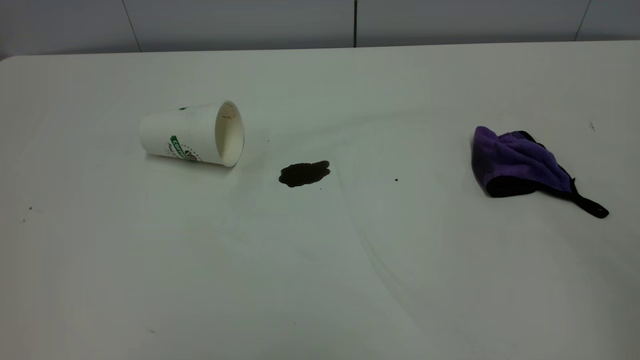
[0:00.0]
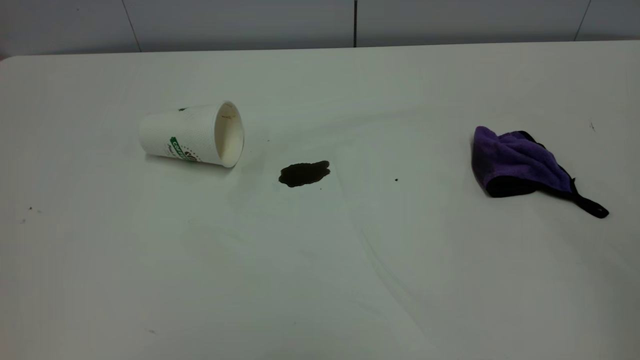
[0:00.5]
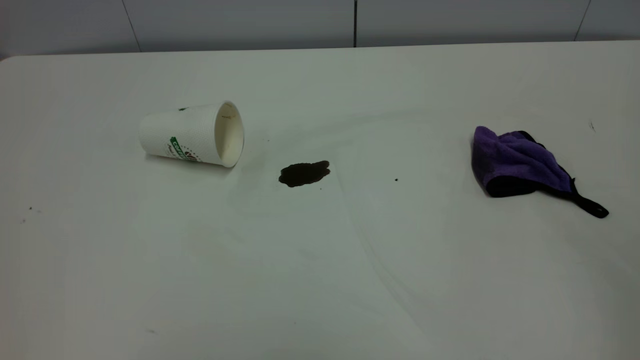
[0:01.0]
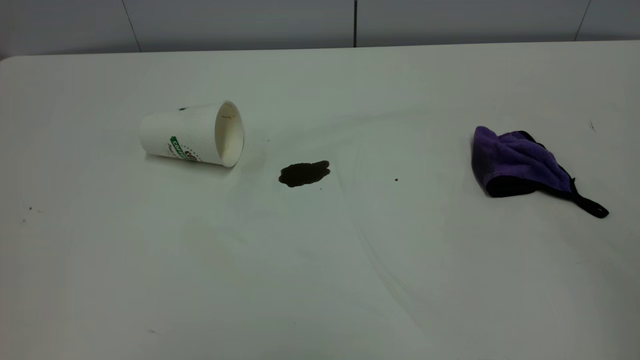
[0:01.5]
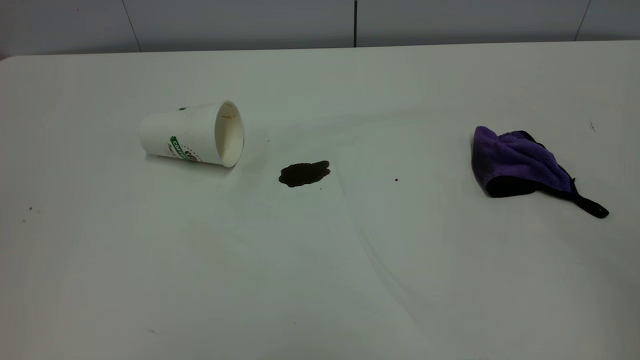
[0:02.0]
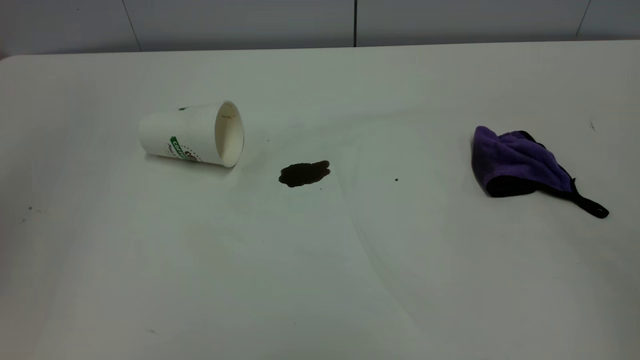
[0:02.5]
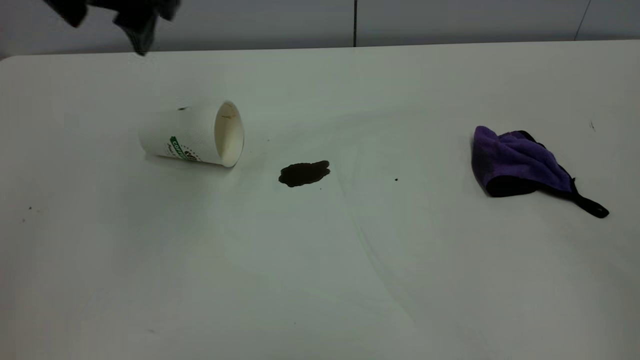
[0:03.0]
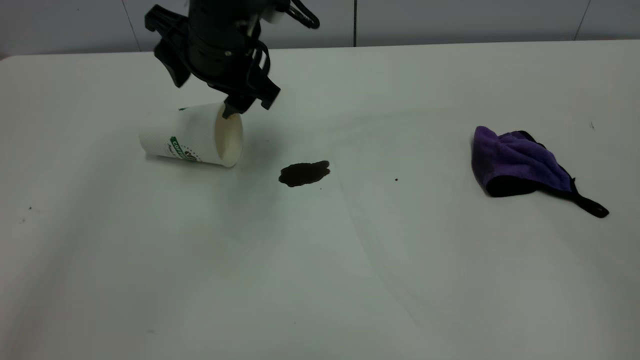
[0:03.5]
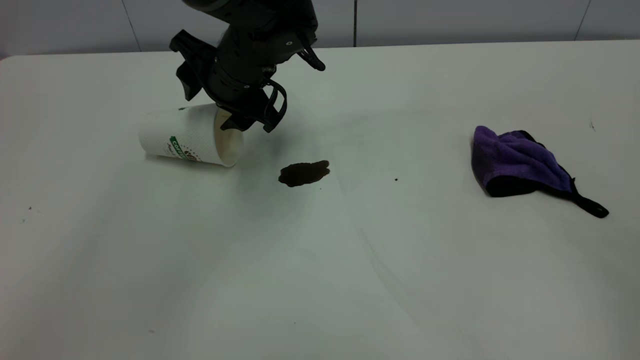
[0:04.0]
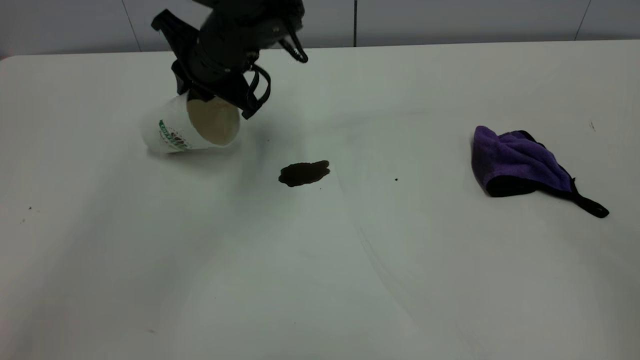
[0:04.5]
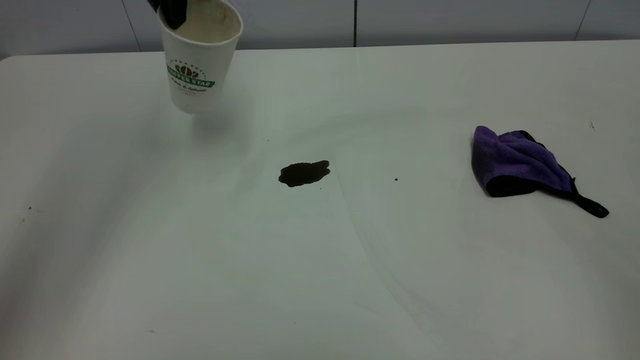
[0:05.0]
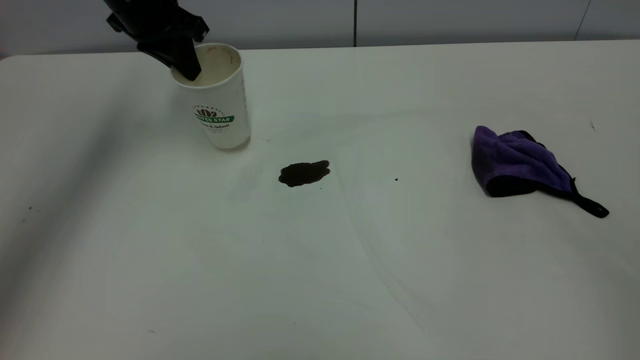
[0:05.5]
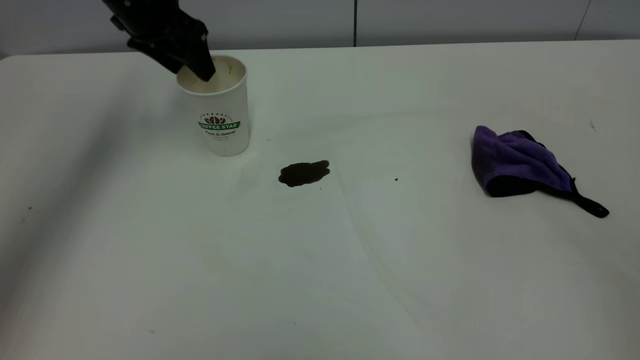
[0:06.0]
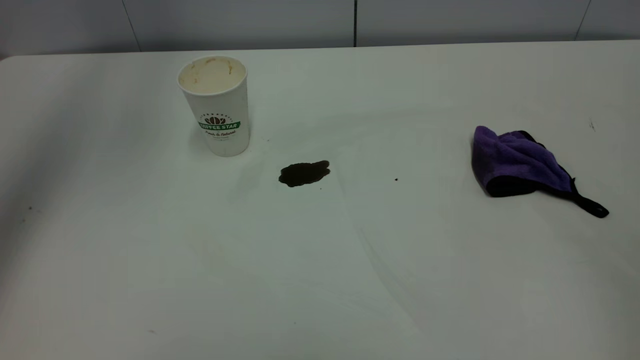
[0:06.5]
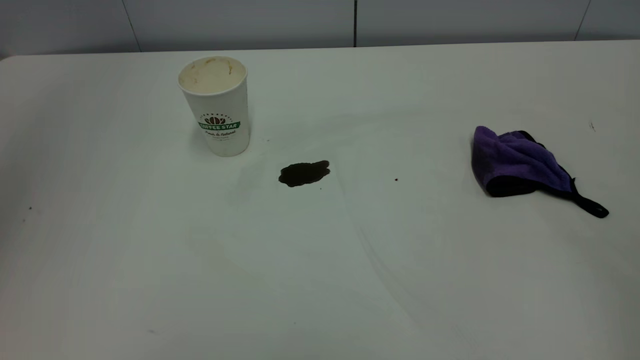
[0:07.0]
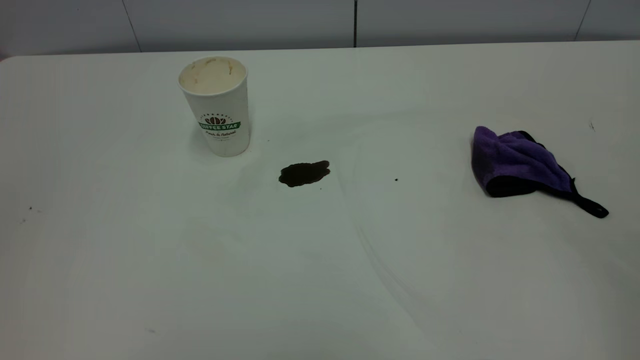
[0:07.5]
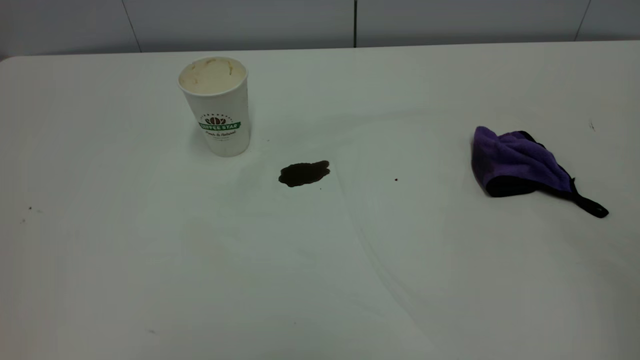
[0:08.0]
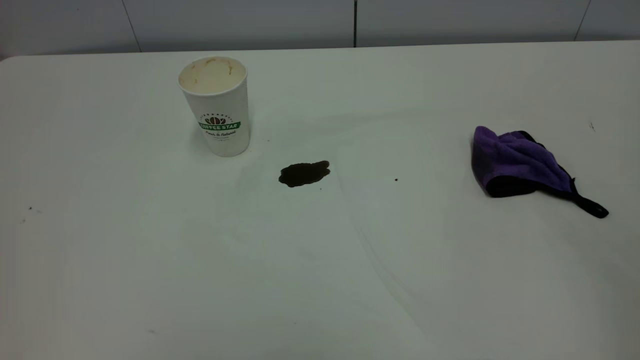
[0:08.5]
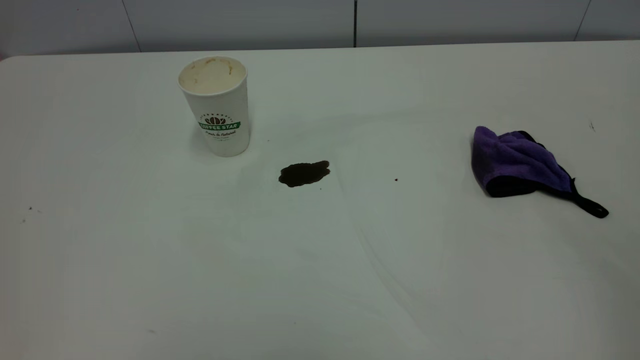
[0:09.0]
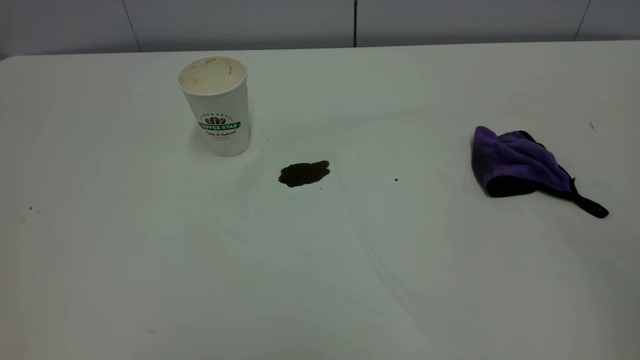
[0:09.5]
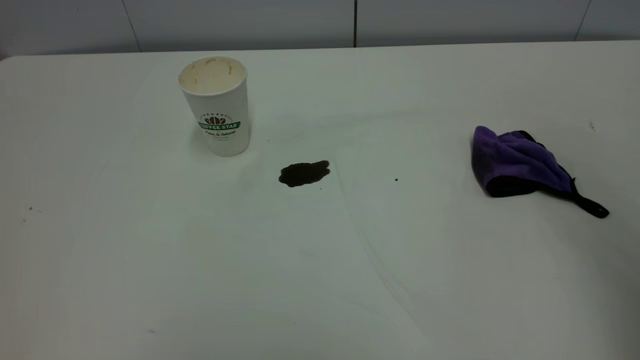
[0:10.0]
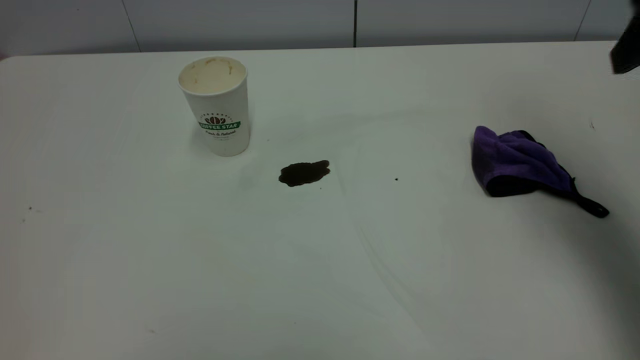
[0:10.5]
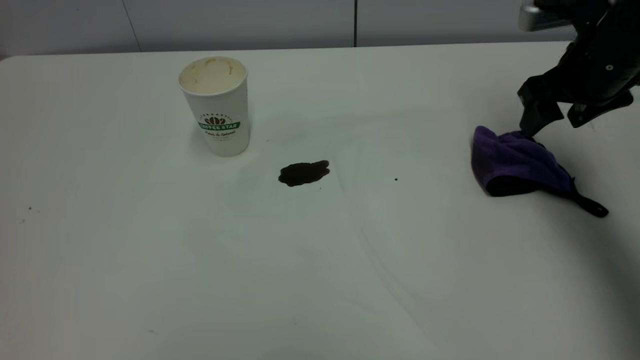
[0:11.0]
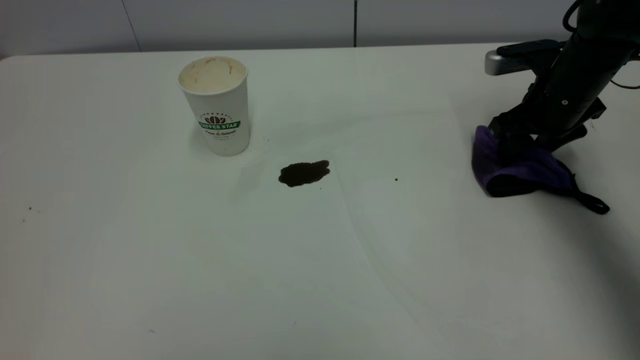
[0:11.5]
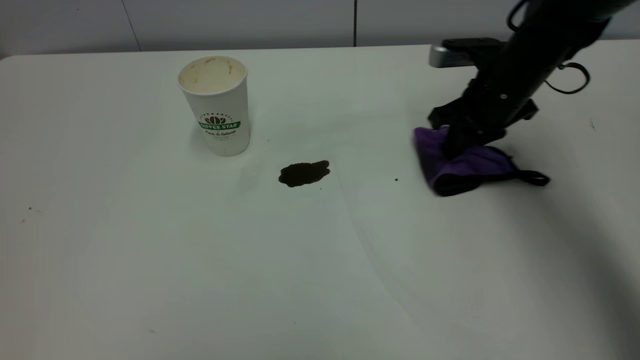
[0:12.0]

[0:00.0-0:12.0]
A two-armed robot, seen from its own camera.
Task of the whole recording: the left gripper pick up the fallen cup and place it upright, the right gripper grasp the purple rag and wipe the coffee stain on the table, the right gripper put the purple rag back in its original position.
Step, 0:00.0 to 0:06.0: Stand the paper cup upright.
0:02.0 to 0:04.0: The left gripper moves forward, downward and to the right, roughly 50 cm.
0:04.0 to 0:06.0: The left gripper heads to the left, upward and forward, covering some 20 cm, and closes, then reopens.
0:06.0 to 0:08.0: The left gripper heads backward, covering roughly 50 cm, and closes.
0:10.0 to 0:12.0: The right gripper travels forward and downward by approximately 40 cm, and closes up.

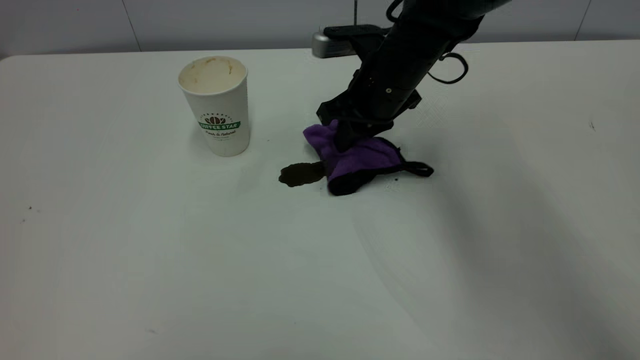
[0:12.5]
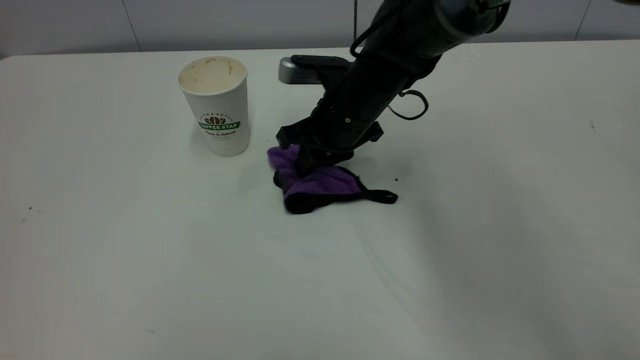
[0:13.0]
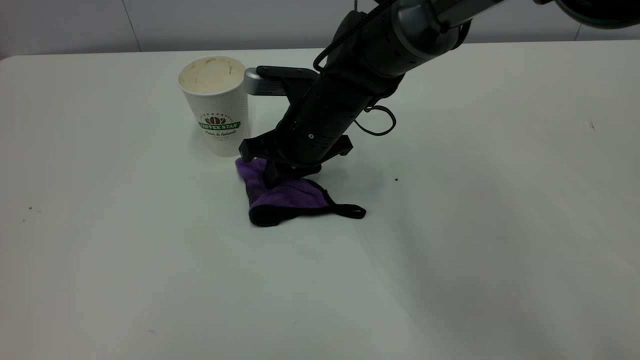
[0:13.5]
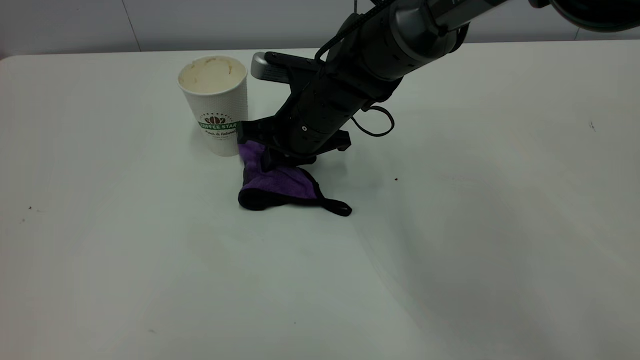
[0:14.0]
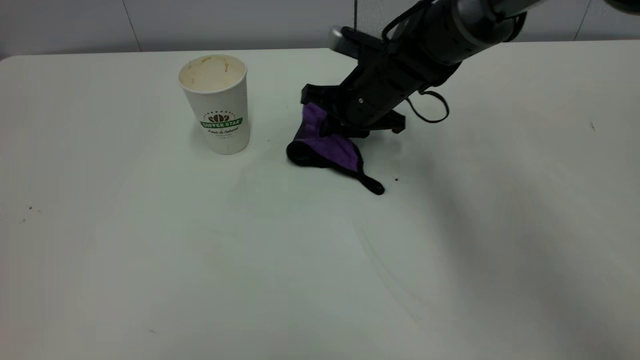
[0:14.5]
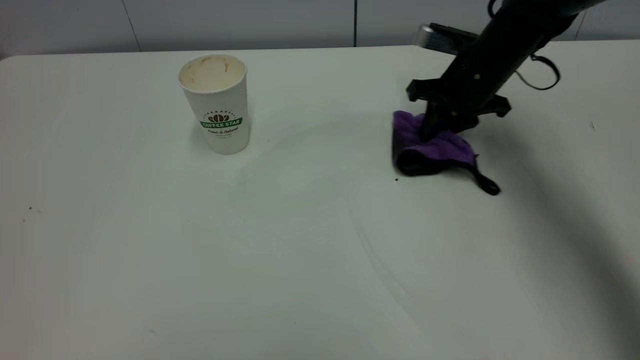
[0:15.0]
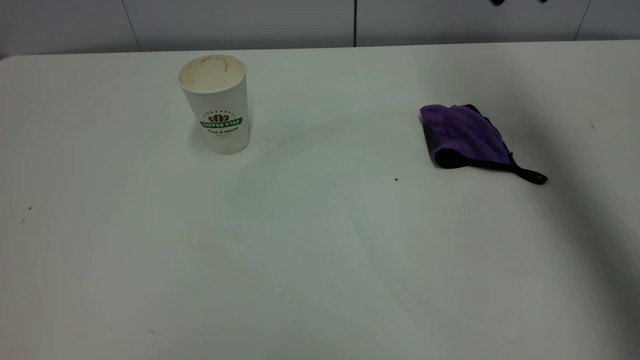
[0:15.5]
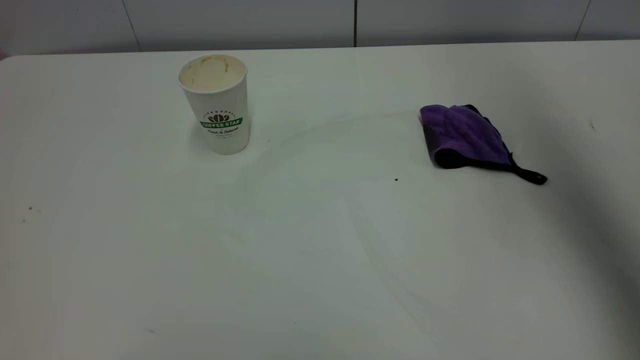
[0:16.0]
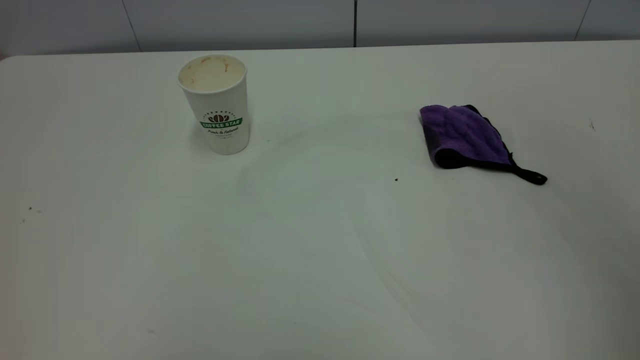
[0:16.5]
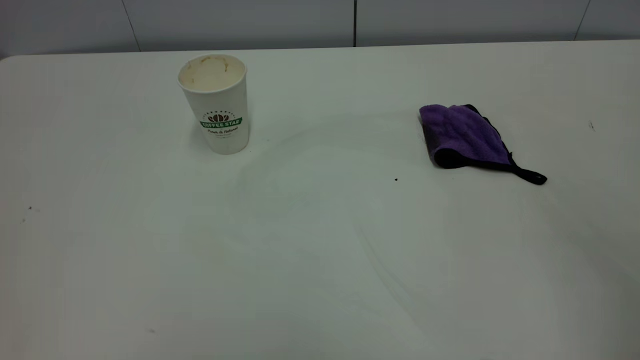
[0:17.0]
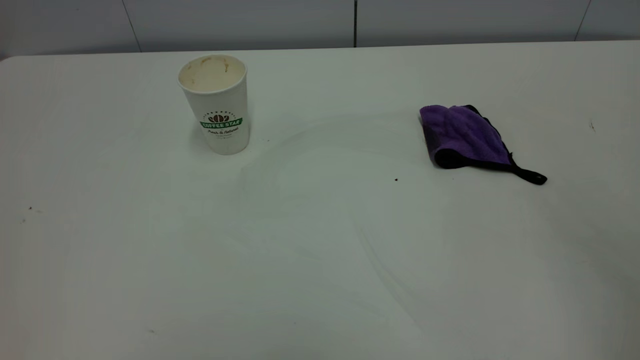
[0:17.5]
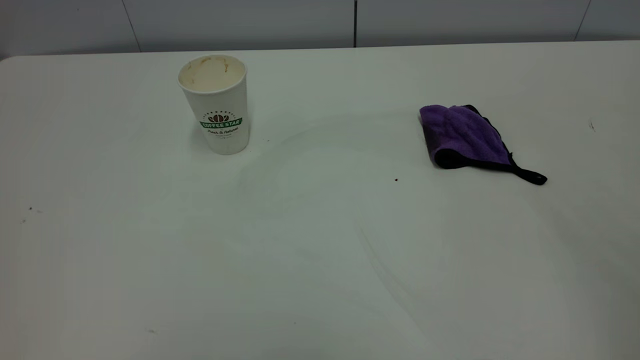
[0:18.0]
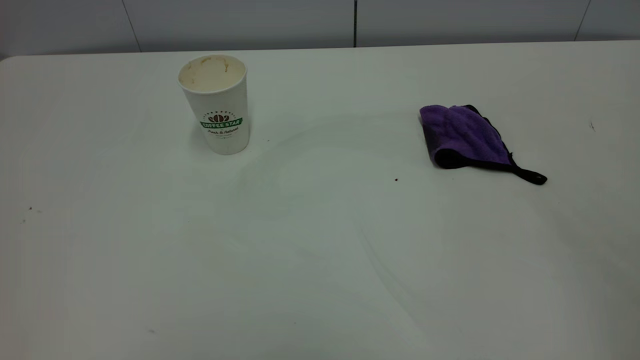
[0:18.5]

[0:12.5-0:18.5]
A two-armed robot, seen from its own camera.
Task of the whole recording: the left gripper pick up the fallen cup and place it upright, the right gripper grasp the purple rag and wipe the coffee stain on the table, the right gripper put the purple rag back in its original position.
Step, 0:12.5 to 0:15.0: Wipe the stains off the table with a rag.
0:12.5 to 0:14.5: The right gripper reaches approximately 10 cm to the left, then returns.
0:14.5 to 0:16.5: The right gripper goes roughly 50 cm backward, upward and to the right, and opens.

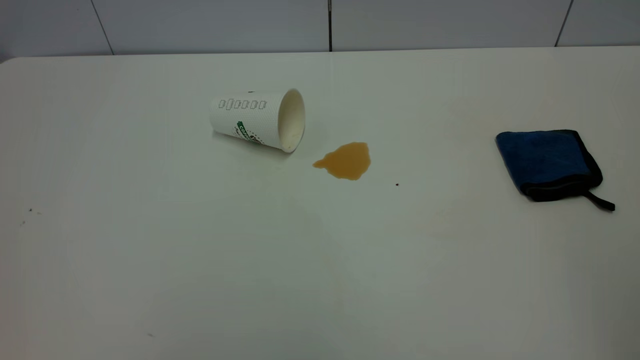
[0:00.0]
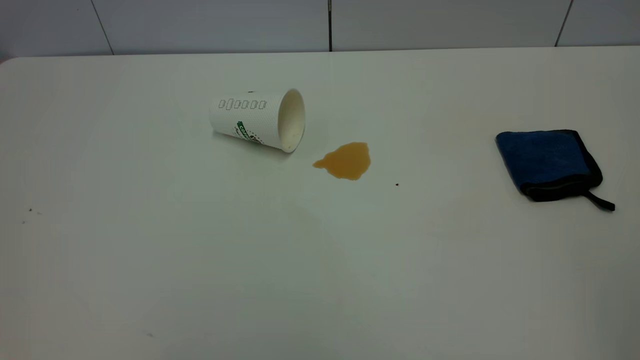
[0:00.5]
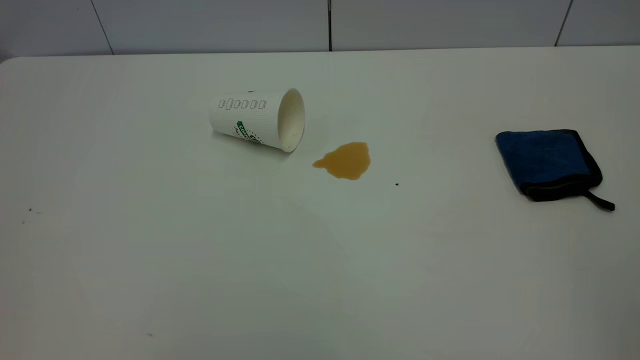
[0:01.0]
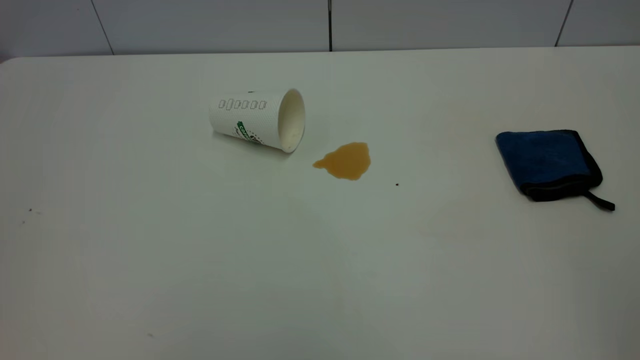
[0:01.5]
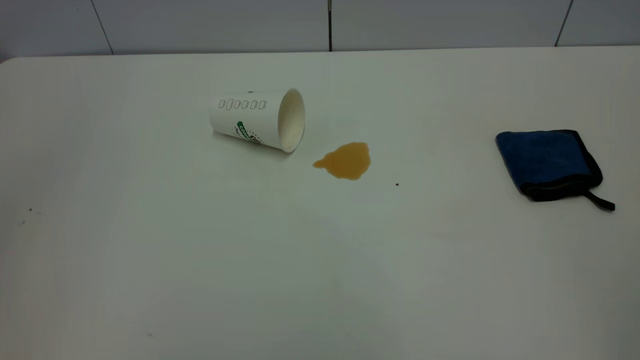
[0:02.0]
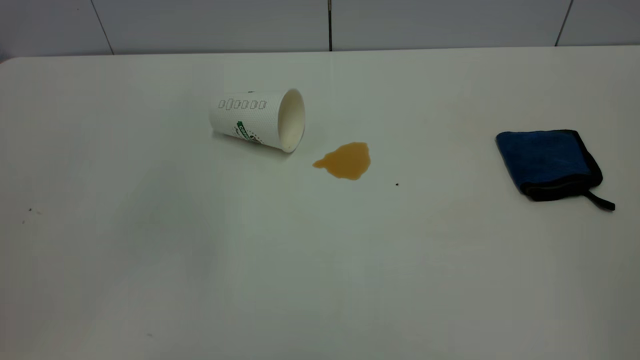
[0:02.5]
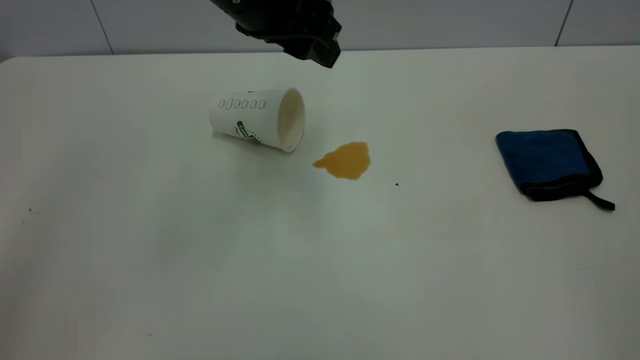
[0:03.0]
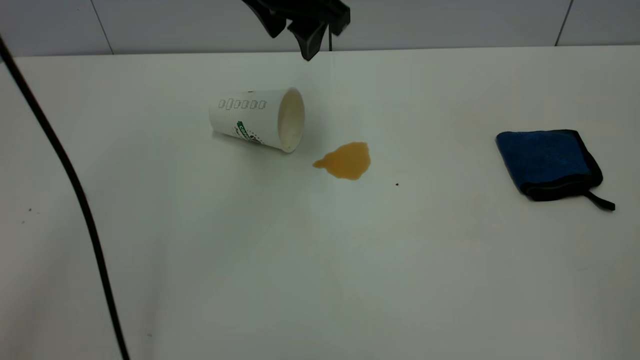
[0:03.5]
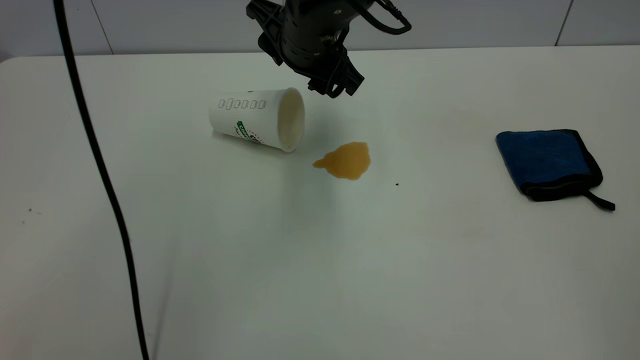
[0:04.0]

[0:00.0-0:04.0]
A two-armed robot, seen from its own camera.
Task of the whole recording: the left gripper pick up the fallen cup and place it upright, the right gripper grasp the blue rag and wipe the tea stain on the table, the right gripper put the blue rag back in its original position.
0:02.0 to 0:04.0: The left gripper heads to the right, forward and downward, covering roughly 50 cm.
